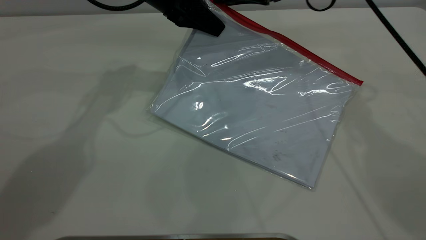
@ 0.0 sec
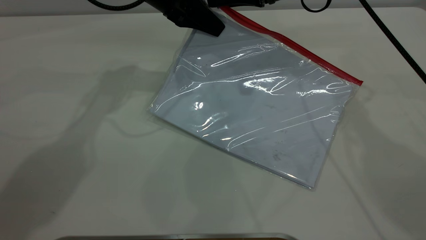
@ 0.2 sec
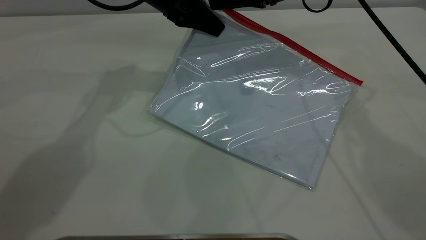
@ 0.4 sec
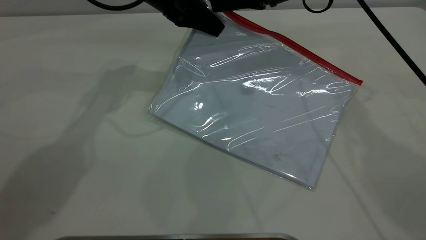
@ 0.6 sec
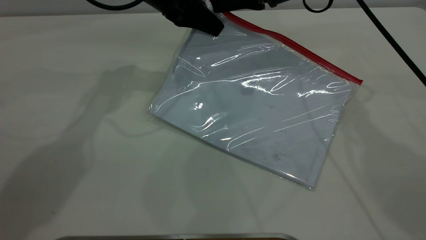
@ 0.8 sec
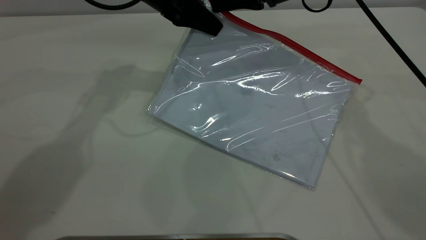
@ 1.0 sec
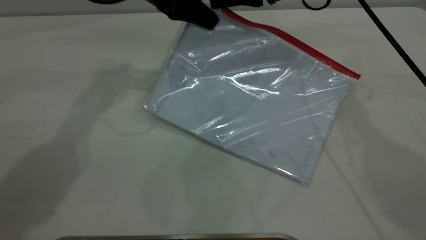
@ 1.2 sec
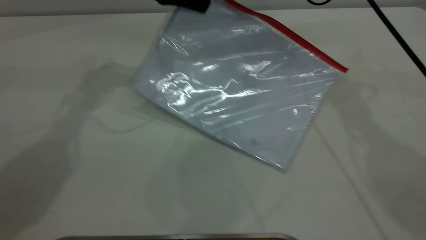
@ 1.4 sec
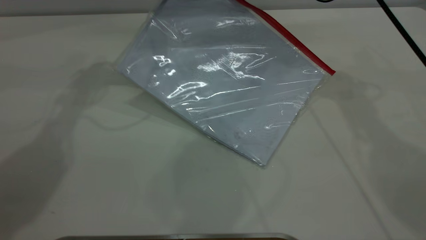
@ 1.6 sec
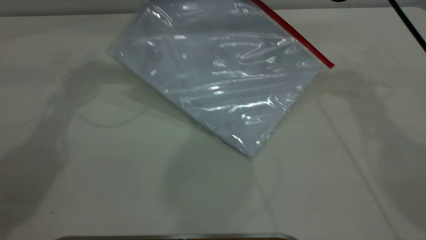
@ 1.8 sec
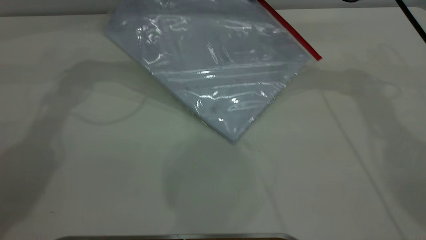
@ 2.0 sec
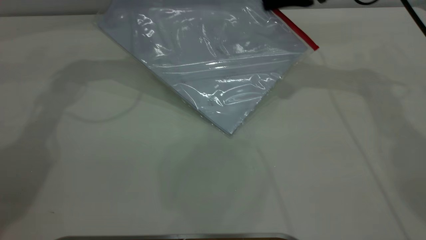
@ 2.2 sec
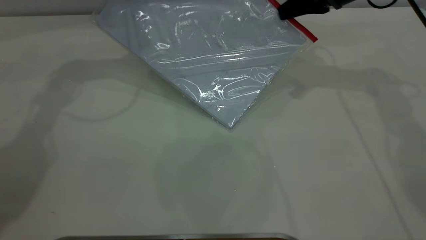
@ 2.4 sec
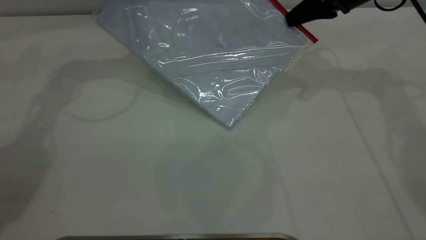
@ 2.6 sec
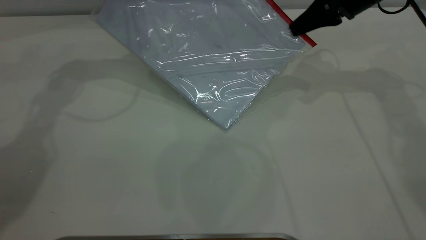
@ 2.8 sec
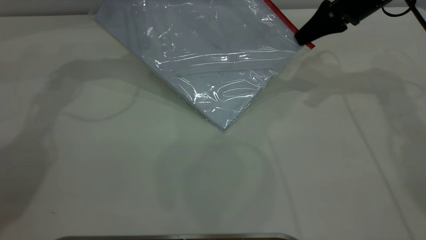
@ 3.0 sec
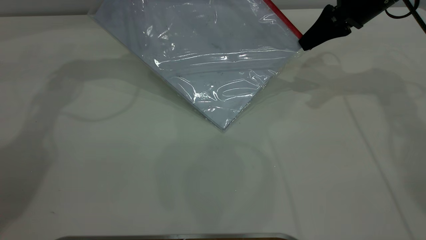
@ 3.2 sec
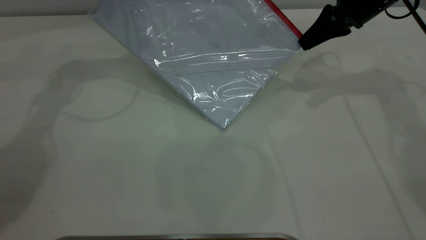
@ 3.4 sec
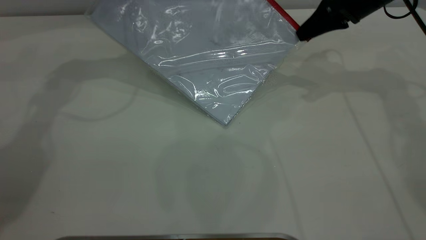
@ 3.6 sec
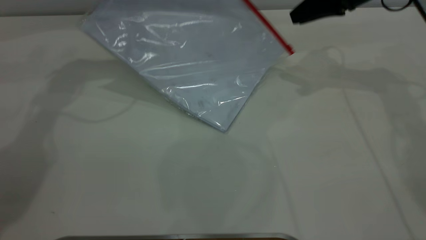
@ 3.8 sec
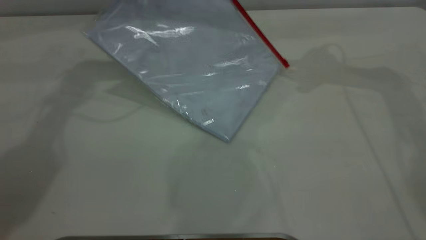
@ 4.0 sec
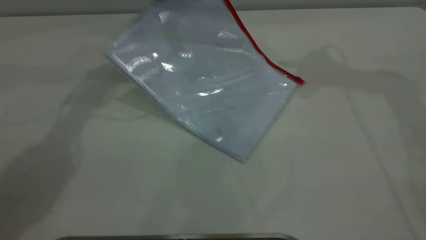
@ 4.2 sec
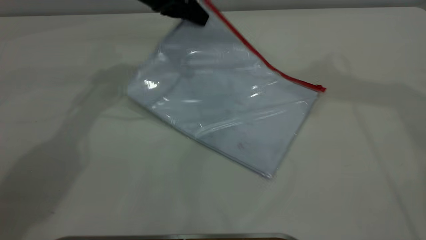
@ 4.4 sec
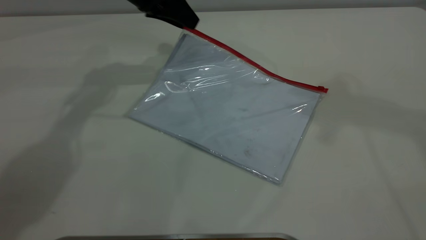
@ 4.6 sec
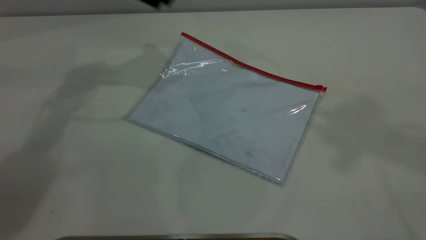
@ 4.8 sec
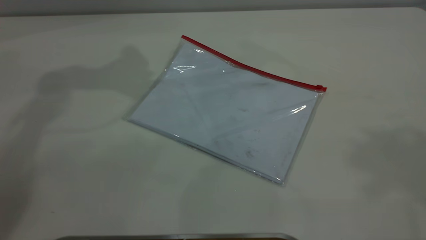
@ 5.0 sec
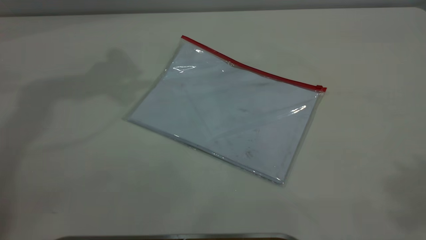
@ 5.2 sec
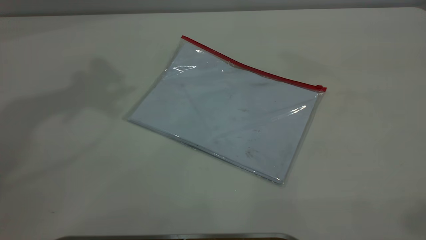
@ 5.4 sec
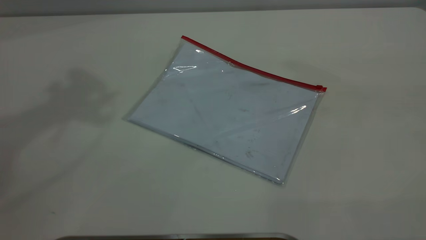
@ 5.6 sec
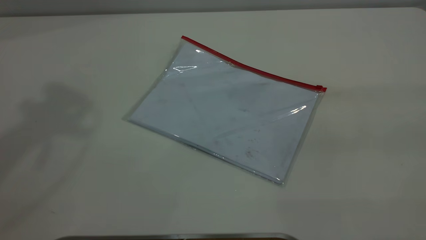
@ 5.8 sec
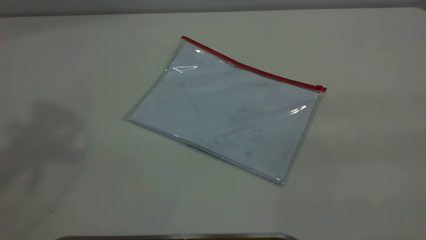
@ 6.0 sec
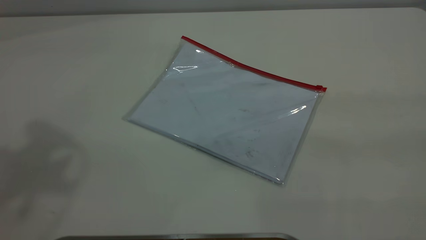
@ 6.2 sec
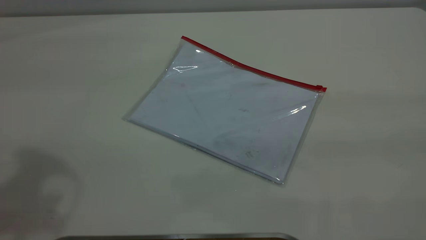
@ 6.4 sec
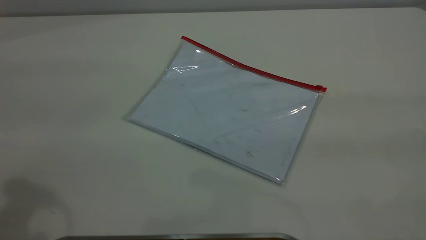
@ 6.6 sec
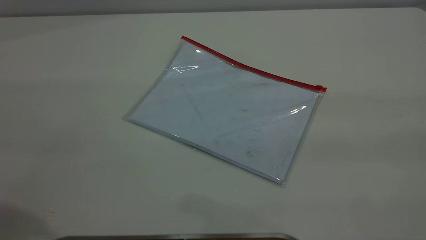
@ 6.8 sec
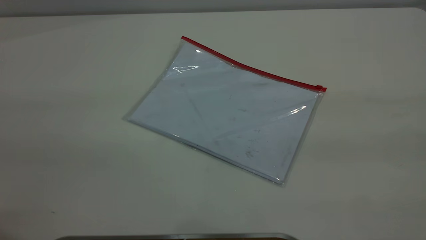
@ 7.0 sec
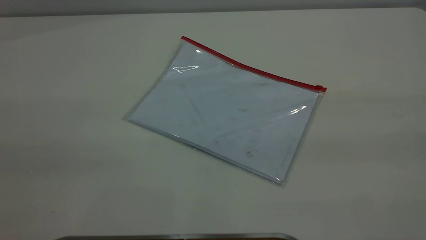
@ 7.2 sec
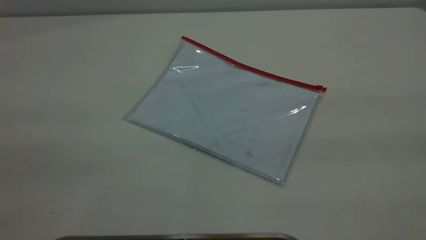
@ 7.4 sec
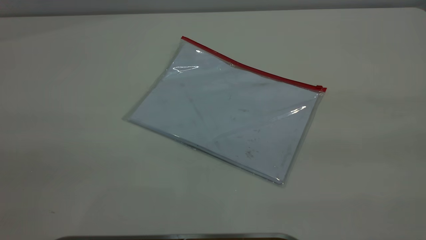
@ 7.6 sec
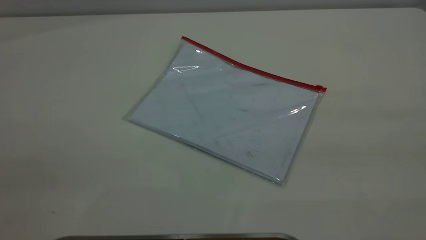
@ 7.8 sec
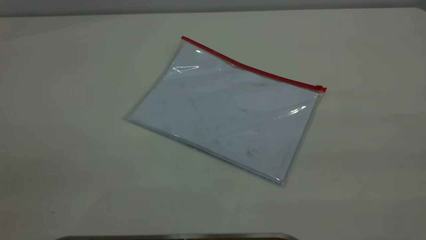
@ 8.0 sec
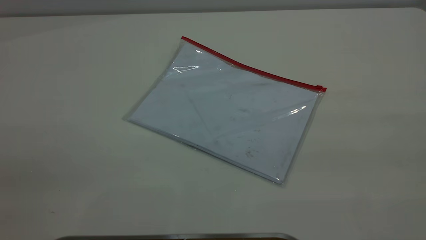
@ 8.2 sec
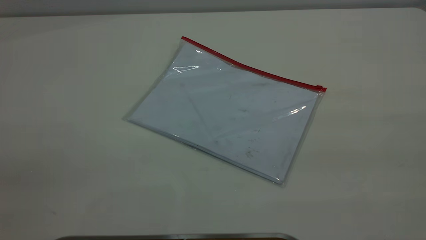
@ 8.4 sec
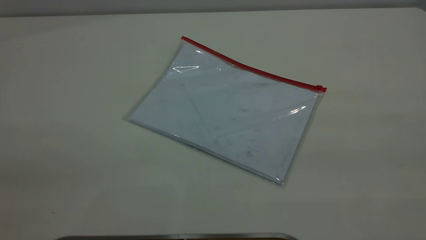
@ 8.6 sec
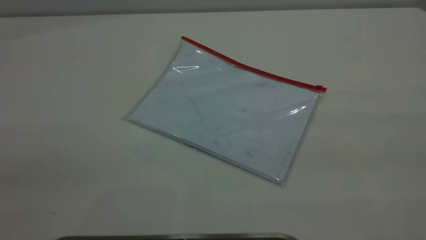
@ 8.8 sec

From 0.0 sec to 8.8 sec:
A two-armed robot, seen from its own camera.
Step, from 0.0 sec to 3.6 sec: Pulling up the zipper on the transparent plastic bag with the right gripper to close it.
Step, from 4.0 sec to 4.8 sec: Place the transparent plastic bag.
From 0.0 sec to 1.4 sec: The right gripper closes.
From 1.4 sec to 3.0 sec: The left gripper moves to the left, some 5 cm, while the right gripper travels to the right by some 10 cm.
From 3.0 sec to 4.4 sec: The left gripper shifts approximately 10 cm downward and to the right, and opens up, while the right gripper shifts about 25 cm upward, and opens up.
From 4.4 sec to 5.8 sec: The left gripper is displaced upward and backward by approximately 40 cm, and opens up; the right gripper shifts about 35 cm backward.
